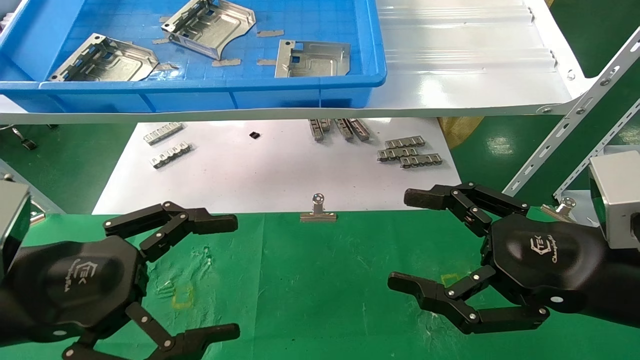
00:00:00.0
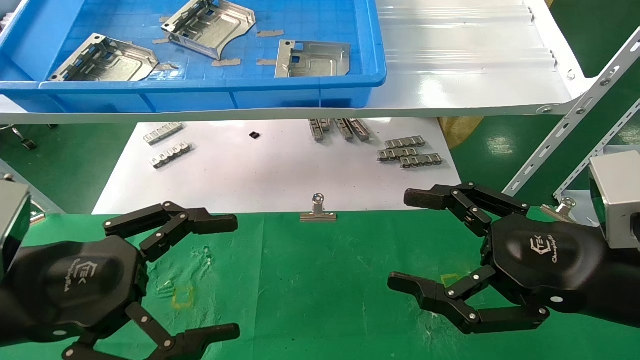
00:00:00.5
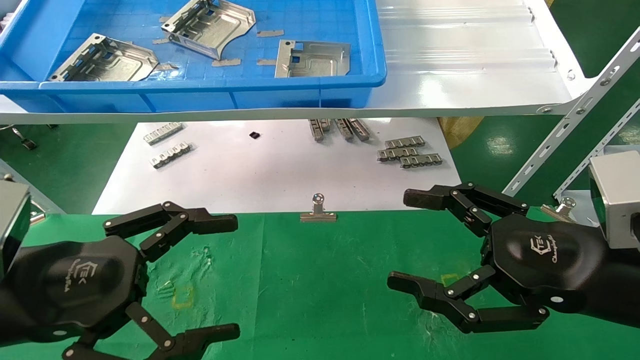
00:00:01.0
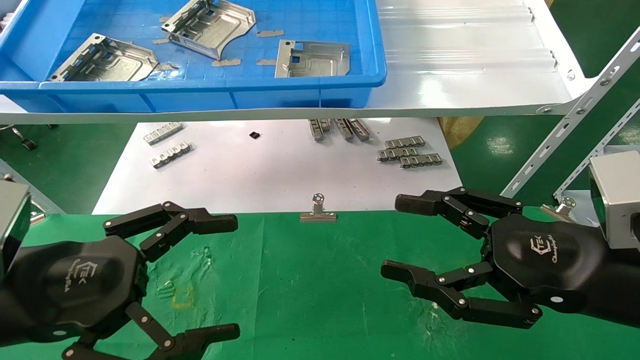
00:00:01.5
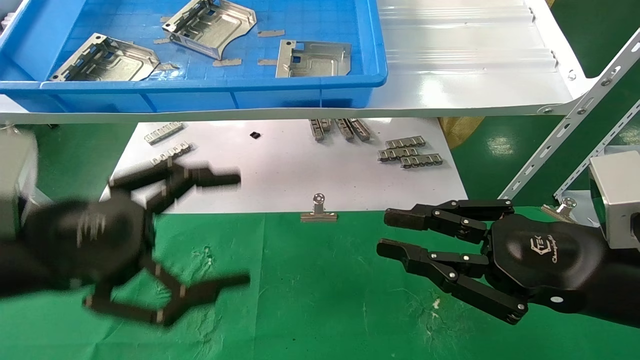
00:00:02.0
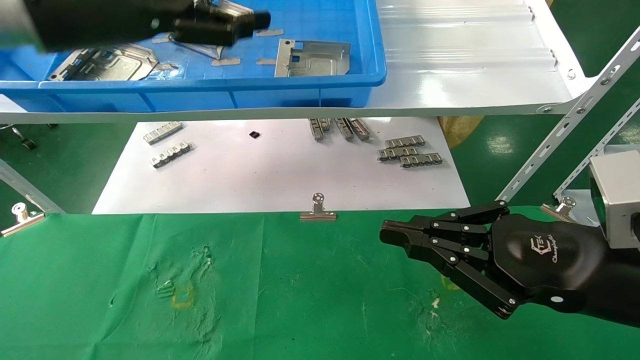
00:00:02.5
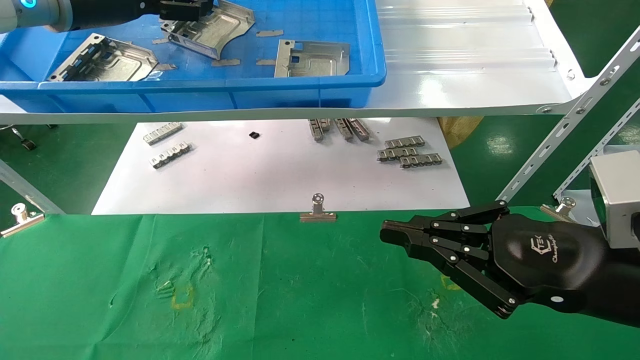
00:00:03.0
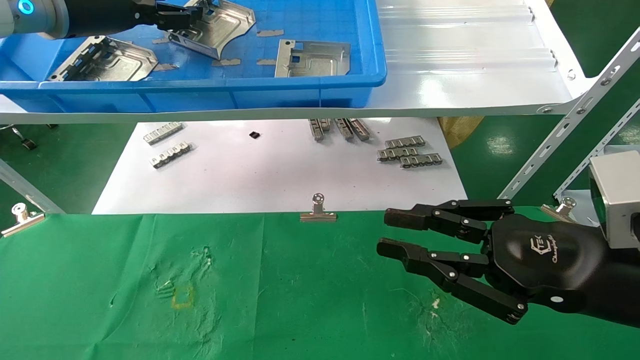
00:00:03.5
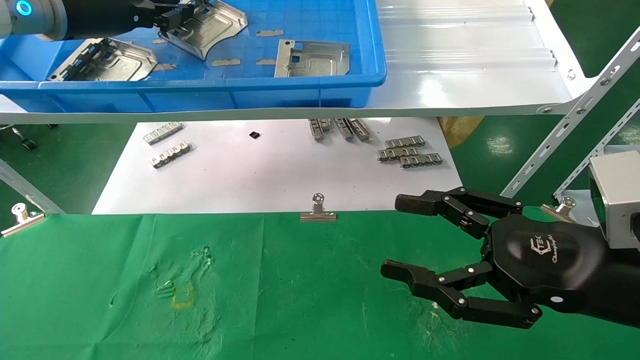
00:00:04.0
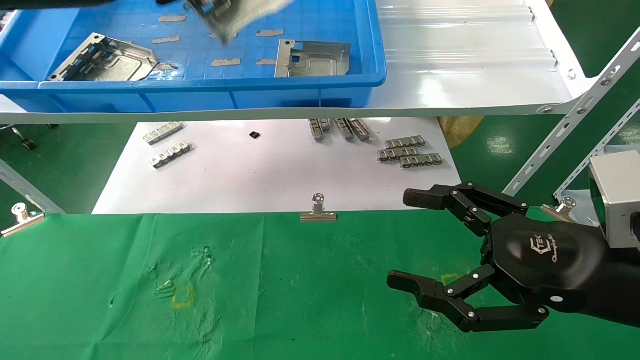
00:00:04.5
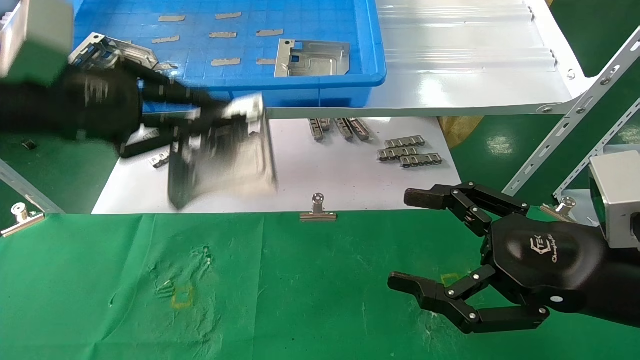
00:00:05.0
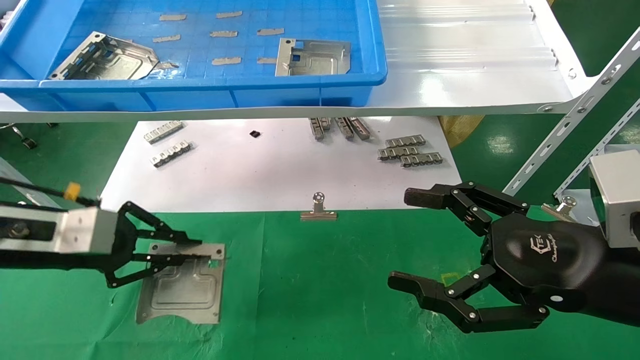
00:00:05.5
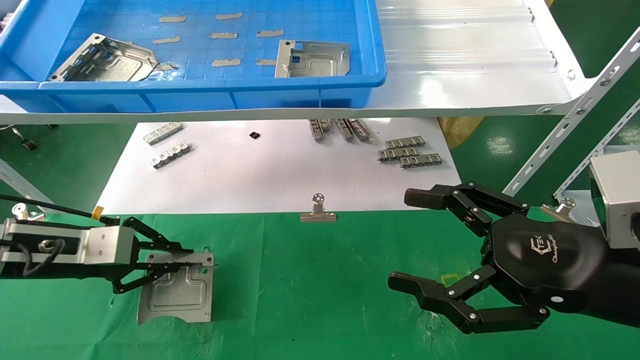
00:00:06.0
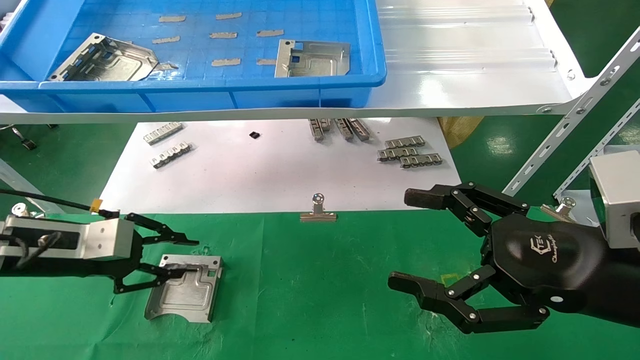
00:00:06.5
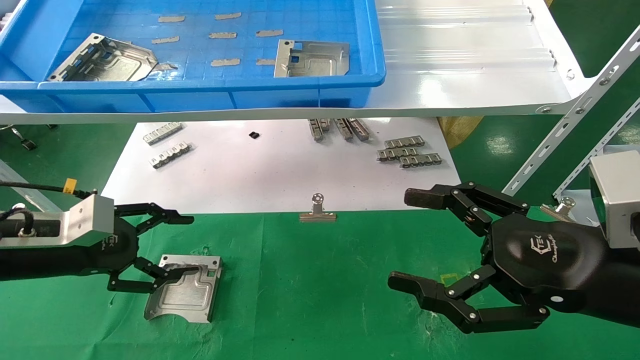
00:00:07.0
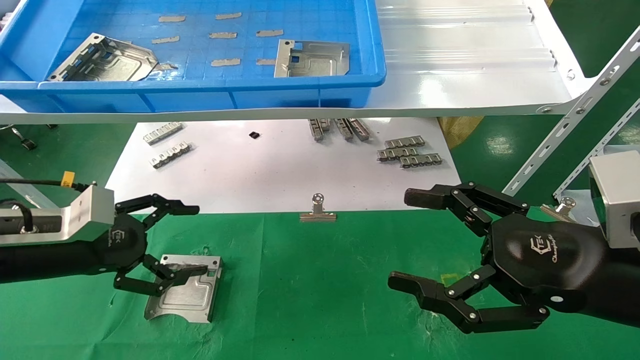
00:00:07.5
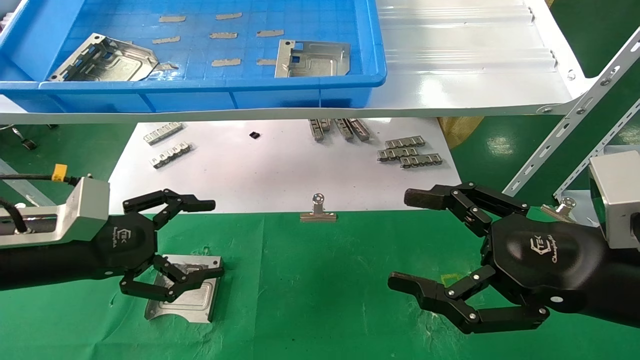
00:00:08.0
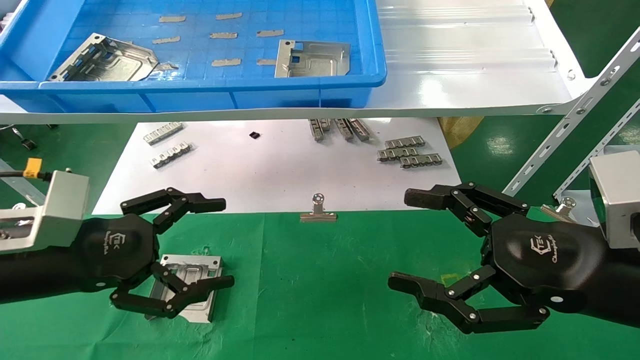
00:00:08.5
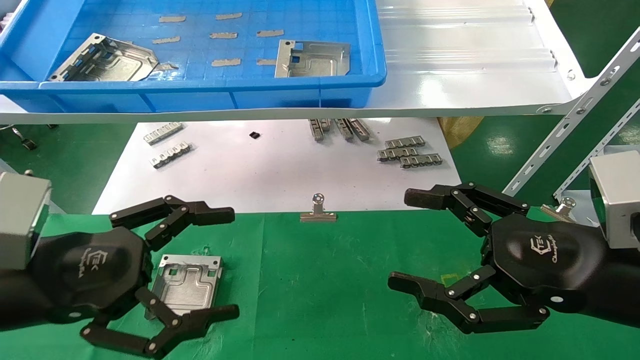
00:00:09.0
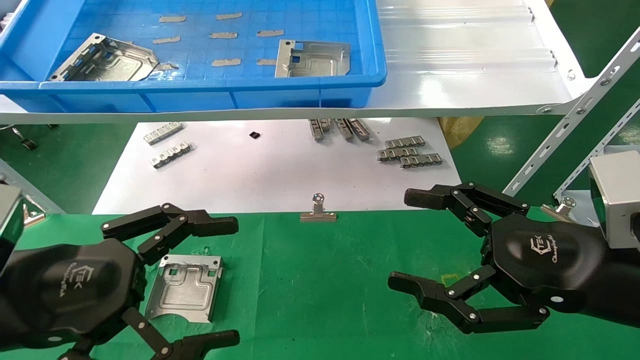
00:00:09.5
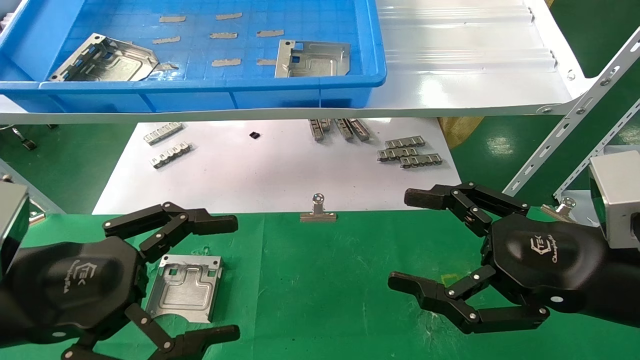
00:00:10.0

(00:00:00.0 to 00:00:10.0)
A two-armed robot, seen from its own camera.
Task of the whole recording: use the mechanical arm to pick up the parts and place them on the table.
Step, 00:00:02.5 - 00:00:04.0: Pick up the hard drive bracket from the feeding area.
Step, 00:00:04.5 - 00:00:06.0: Place the hard drive bracket into the box.
00:00:00.0 - 00:00:02.0: The left gripper shifts about 5 cm upward; the right gripper closes.
00:00:02.0 - 00:00:04.0: The left gripper is displaced forward and upward by roughly 25 cm, and closes its fingers; the right gripper closes, then opens again.
00:00:04.0 - 00:00:06.0: The left gripper heads downward, covering about 25 cm; the right gripper opens up.
00:00:06.0 - 00:00:08.0: The left gripper shifts roughly 5 cm backward, and opens.
00:00:08.0 - 00:00:10.0: The left gripper moves backward, approximately 10 cm.
